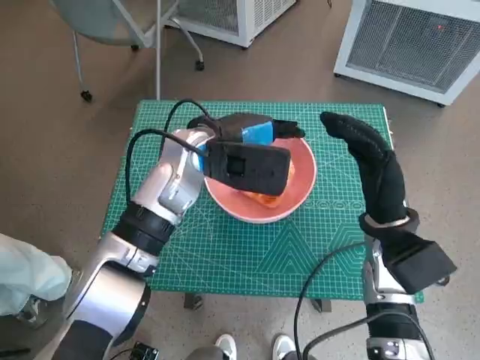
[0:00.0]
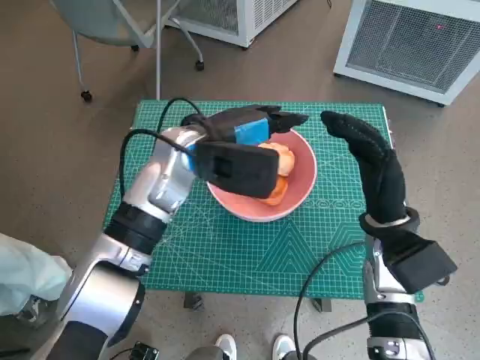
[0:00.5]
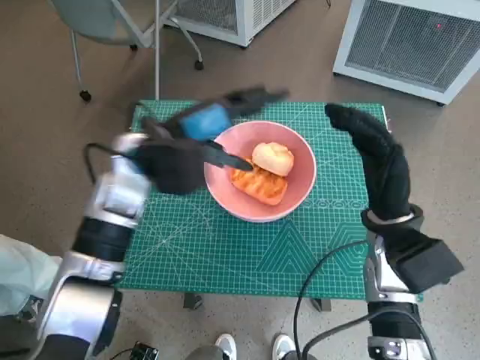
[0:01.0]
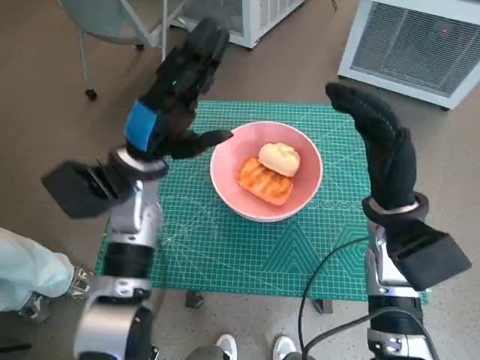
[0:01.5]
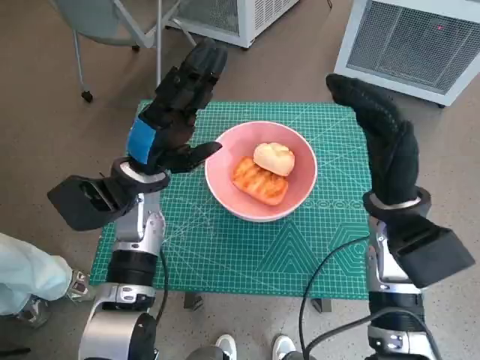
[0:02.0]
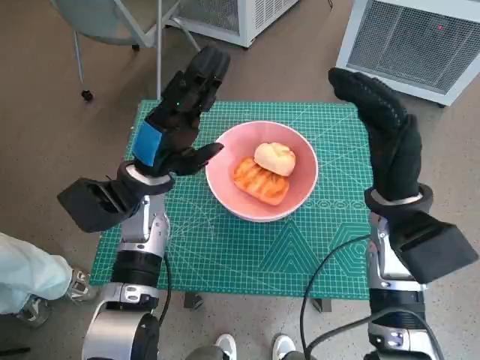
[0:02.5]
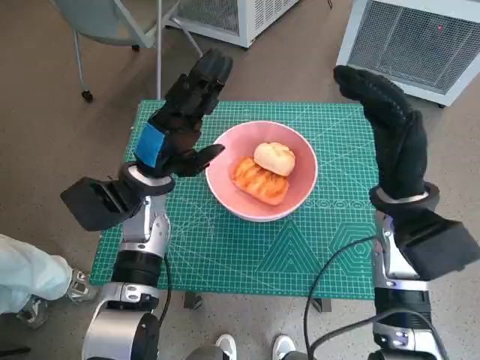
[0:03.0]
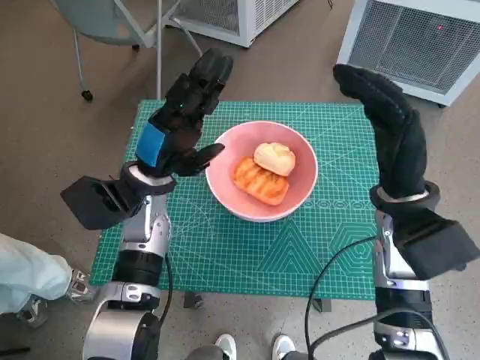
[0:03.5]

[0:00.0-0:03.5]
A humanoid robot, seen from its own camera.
Task of the whole recording: Push the bowl into the center of the table and put the bread into the bowl.
0:00.0 to 0:02.0: The left hand moves to the left, about 10 cm.
0:02.0 to 0:03.5: Both hands stay about where they are.

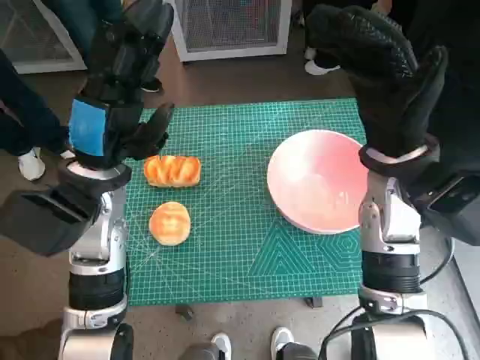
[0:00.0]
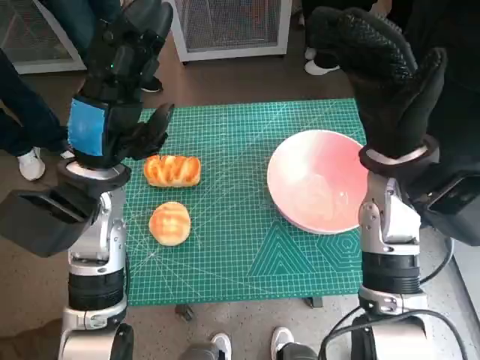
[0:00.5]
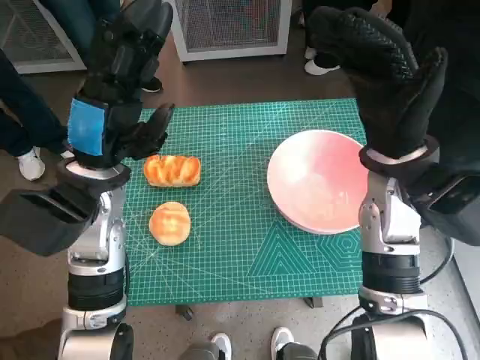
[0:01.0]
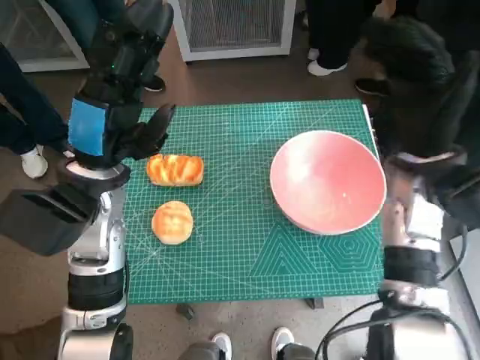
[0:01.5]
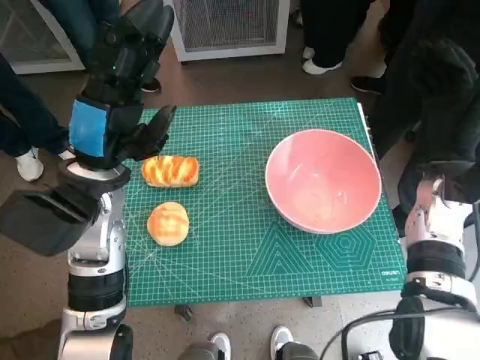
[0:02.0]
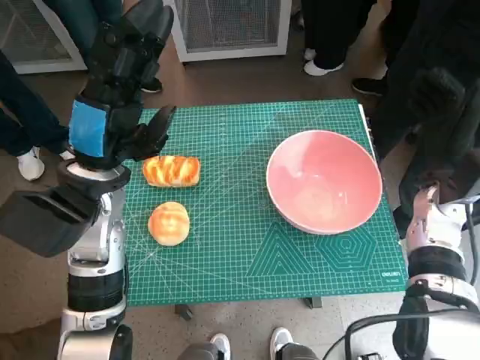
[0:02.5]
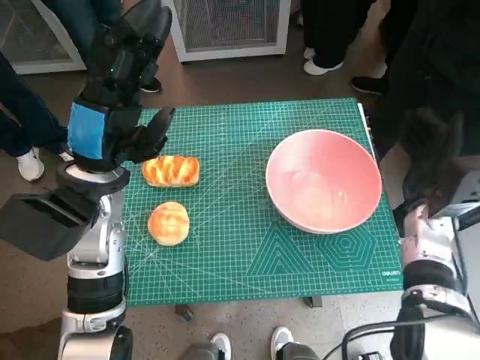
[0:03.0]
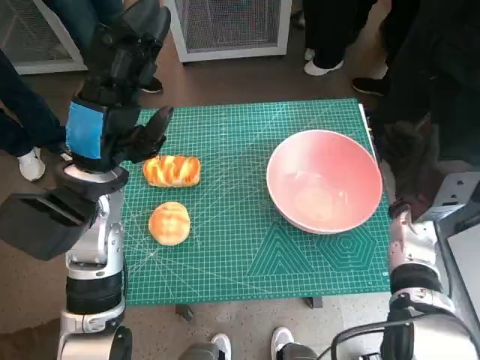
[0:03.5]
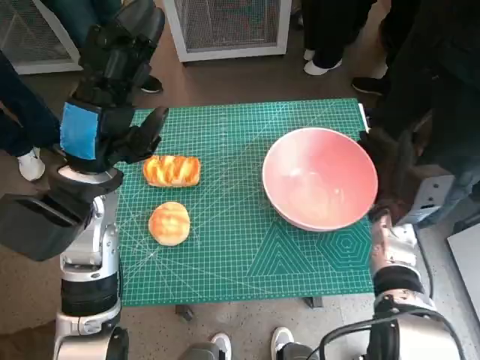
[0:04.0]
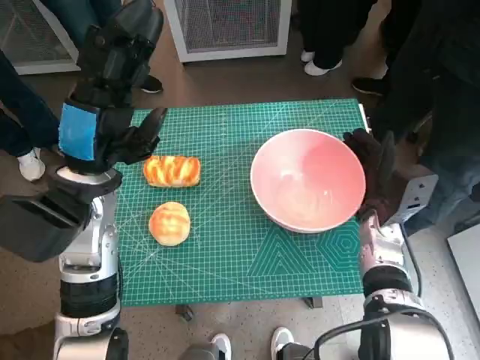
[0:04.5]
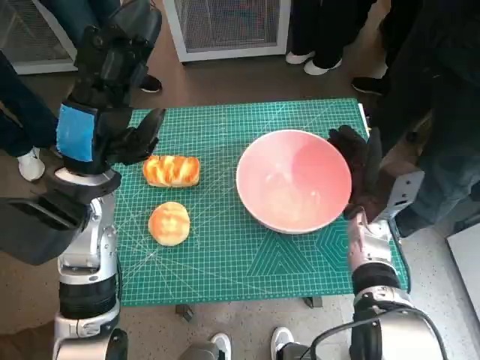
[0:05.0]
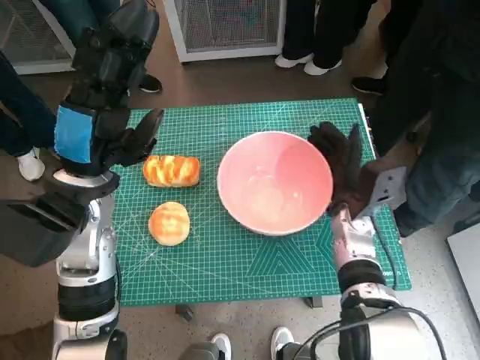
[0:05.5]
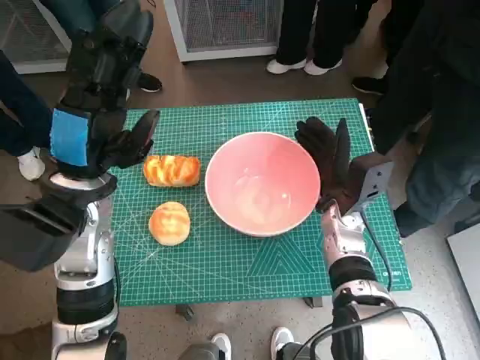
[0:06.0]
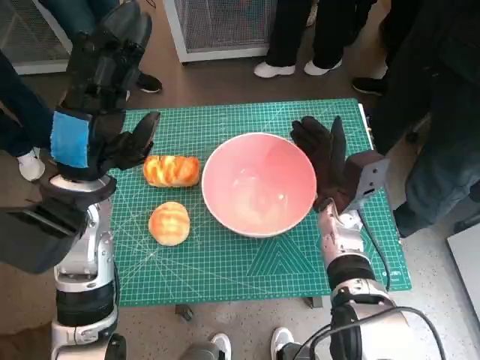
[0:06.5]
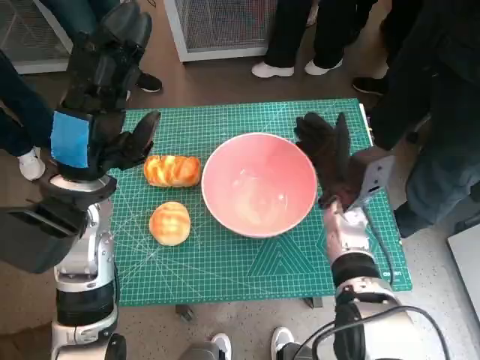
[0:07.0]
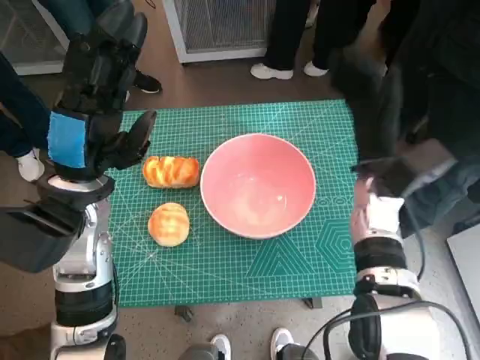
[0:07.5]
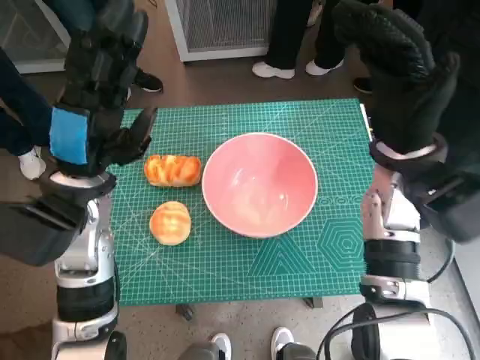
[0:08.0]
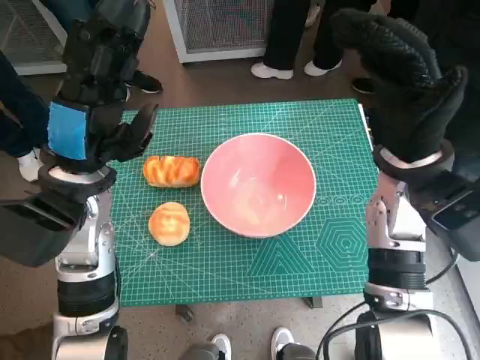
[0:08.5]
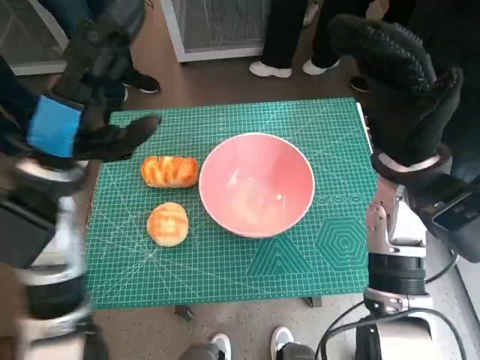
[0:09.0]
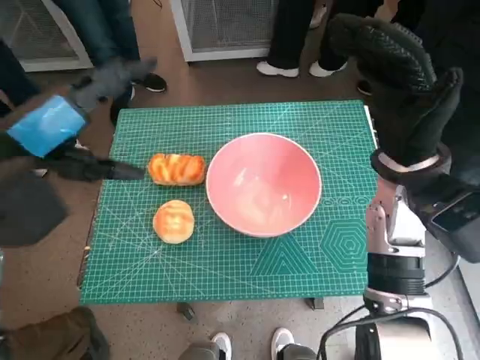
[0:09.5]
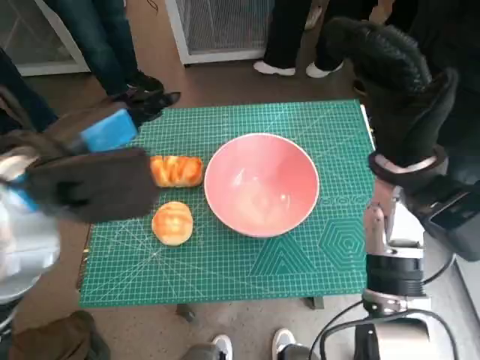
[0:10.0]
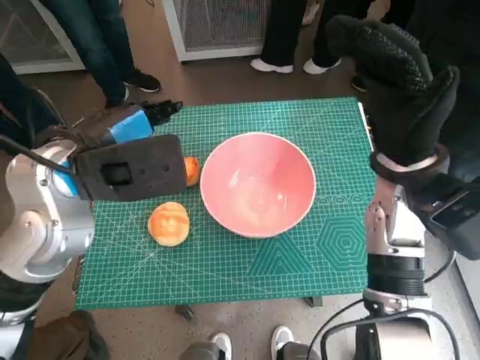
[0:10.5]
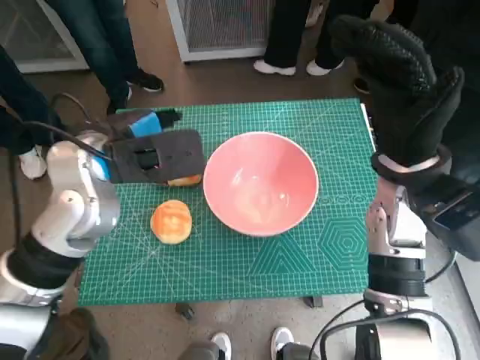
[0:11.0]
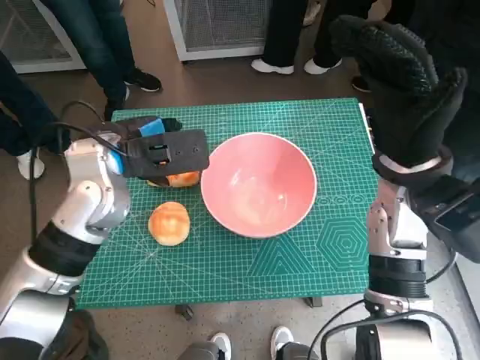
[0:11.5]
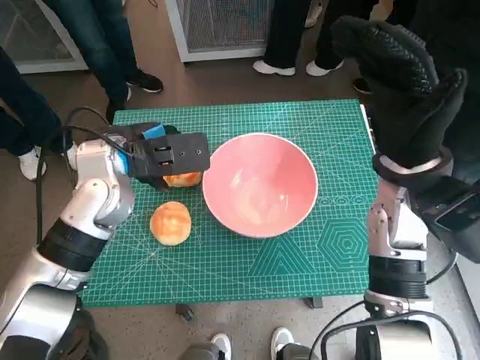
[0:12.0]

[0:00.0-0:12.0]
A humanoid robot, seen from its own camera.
Task of the whole recording: Push the bowl into the center of the table and put the bread into the bowl.
Step, 0:00.0 to 0:07.0: Move the pink bowl to the center of table with right hand.
0:02.0 to 0:04.0: The right hand heads downward, covering some 10 cm.
0:04.0 to 0:06.0: The right hand moves to the left, approximately 10 cm.
0:06.0 to 0:08.0: The right hand heads upward, covering some 15 cm.
0:08.0 to 0:10.0: The left hand moves upward, approximately 10 cm.
0:10.0 to 0:12.0: The left hand shifts some 10 cm forward and downward.

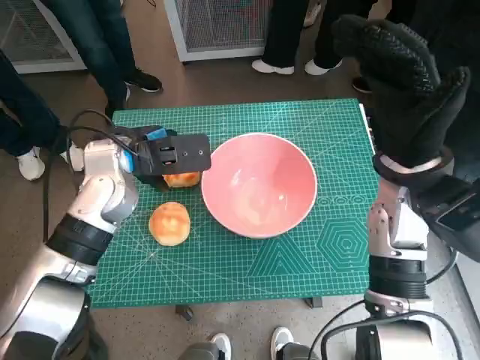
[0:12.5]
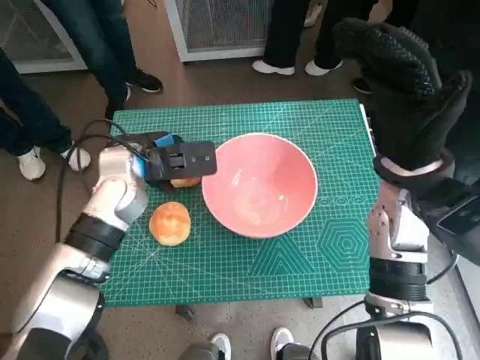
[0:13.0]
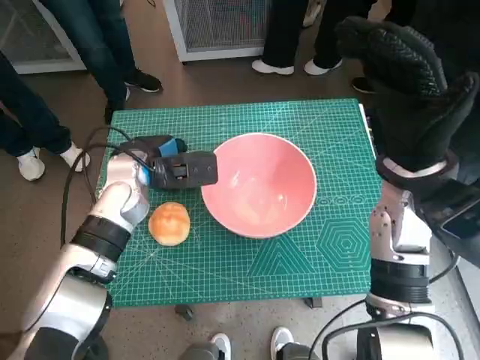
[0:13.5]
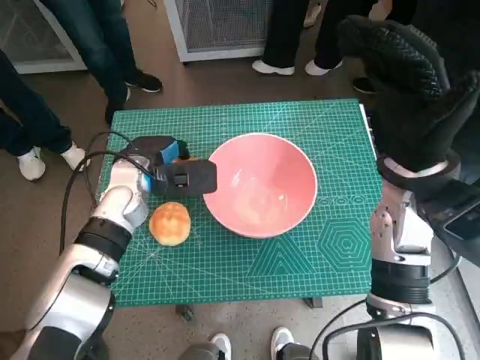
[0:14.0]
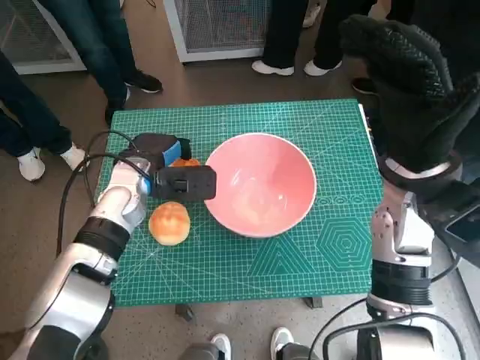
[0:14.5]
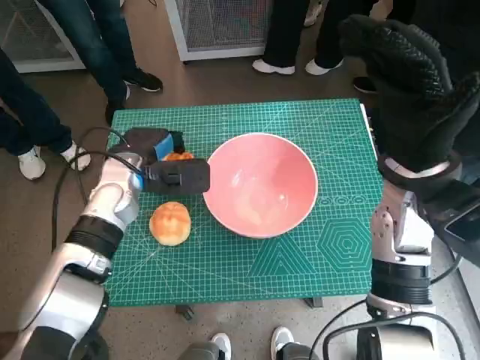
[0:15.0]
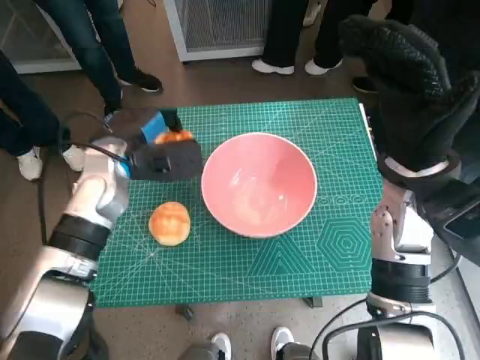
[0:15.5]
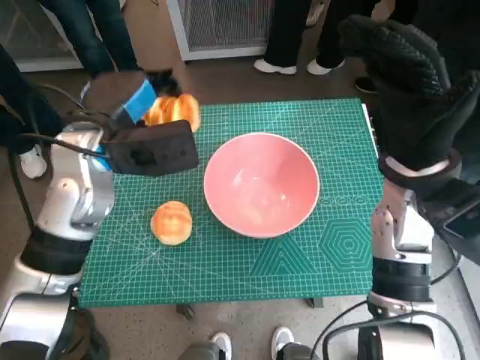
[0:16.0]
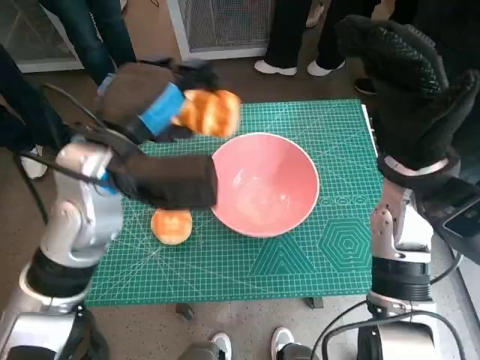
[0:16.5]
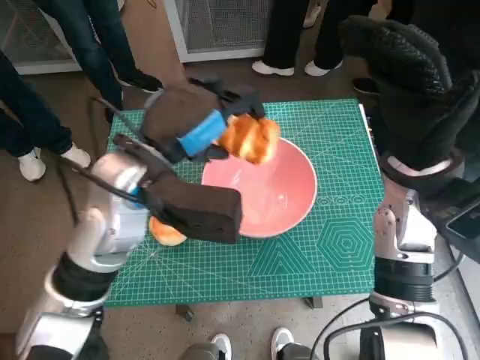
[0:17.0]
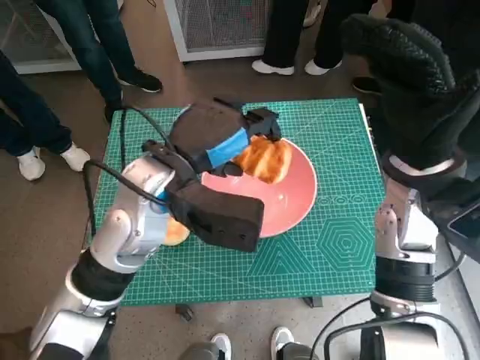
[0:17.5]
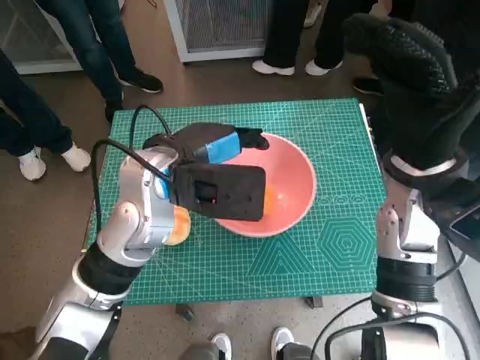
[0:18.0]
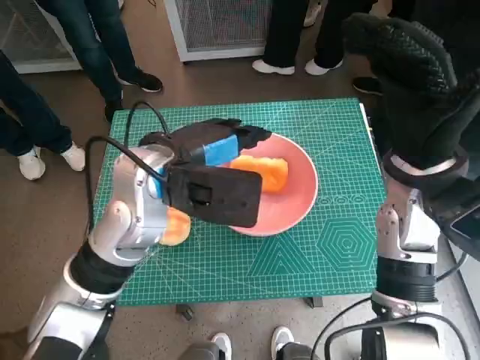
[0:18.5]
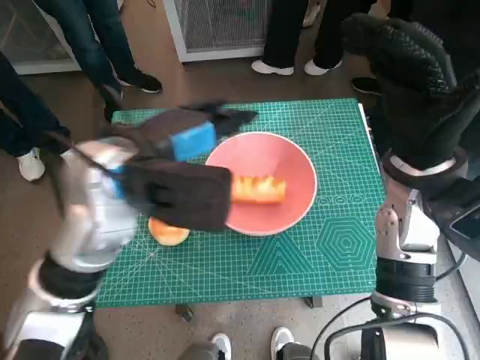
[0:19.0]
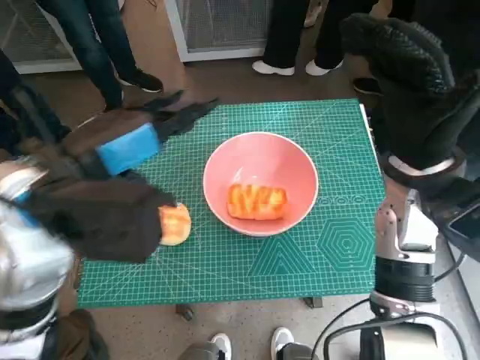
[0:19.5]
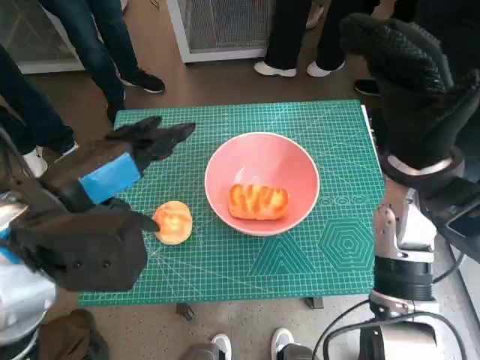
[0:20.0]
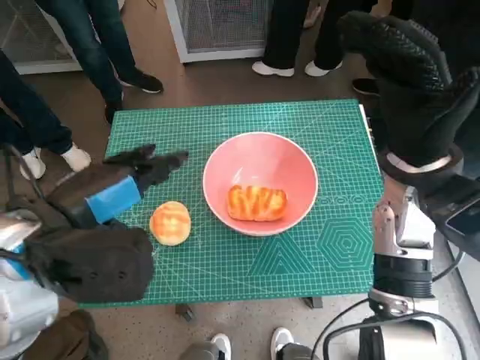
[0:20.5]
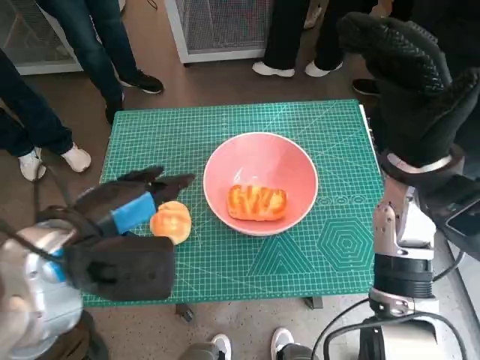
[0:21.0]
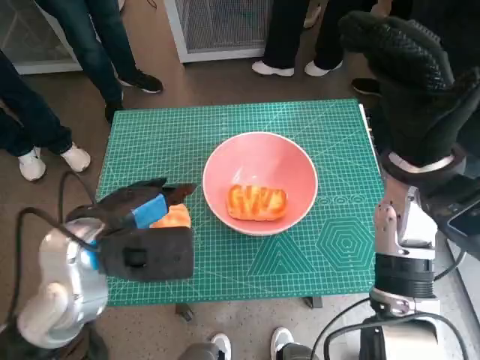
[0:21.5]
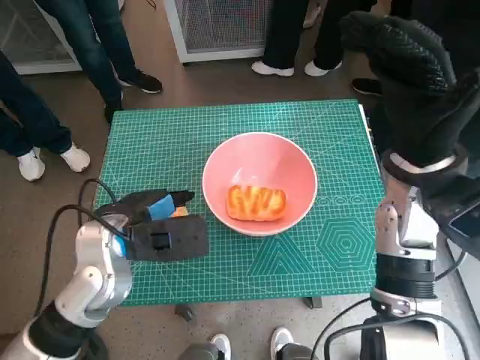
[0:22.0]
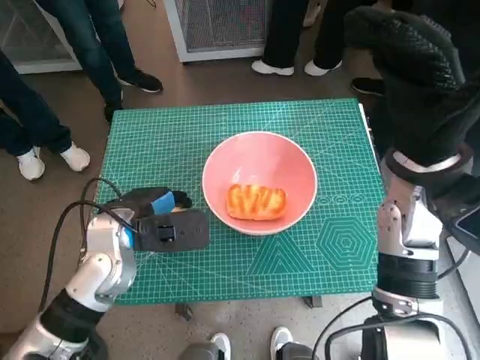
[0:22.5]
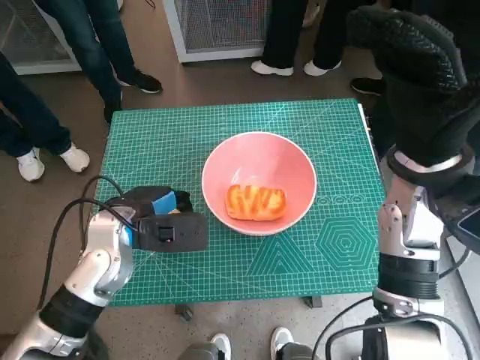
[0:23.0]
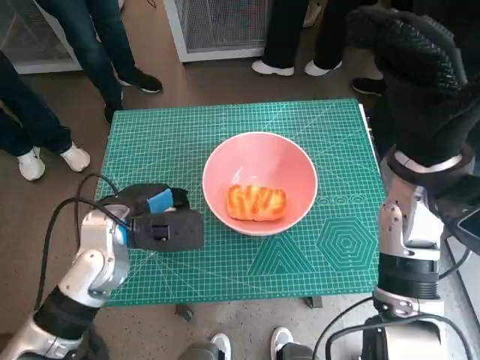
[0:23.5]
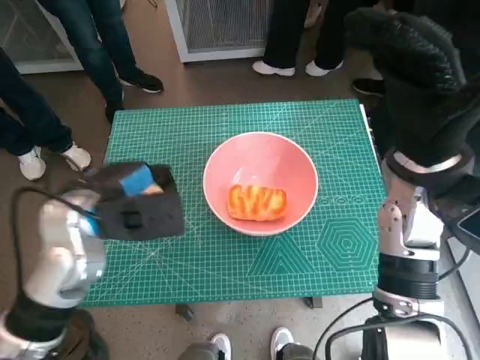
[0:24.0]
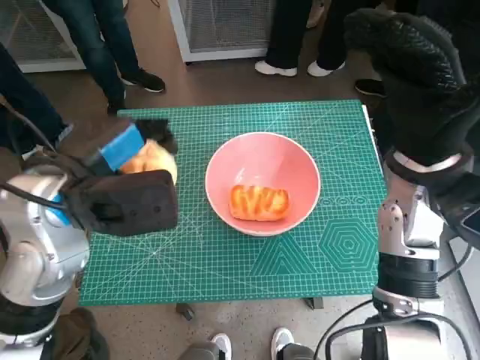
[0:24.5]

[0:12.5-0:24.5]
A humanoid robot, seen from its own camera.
Task of the whole recording: Push the bowl into the center of the table and put the bread into the bowl.
Step, 0:14.5 to 0:18.0: Place the long bread in pink bowl with left hand.
Step, 0:18.5 to 0:22.5: Grasp the round bread with left hand.
0:12.5 to 0:14.5: The left hand moves downward, roughly 5 cm.
0:14.5 to 0:16.5: The left hand moves upward and backward, approximately 15 cm.
0:18.5 to 0:20.5: The left hand is displaced backward and to the left by about 10 cm.
0:20.5 to 0:22.5: The left hand travels downward and forward by roughly 15 cm.
0:22.5 to 0:24.5: The left hand shifts roughly 10 cm upward.
